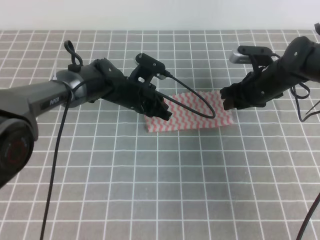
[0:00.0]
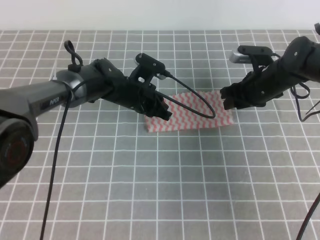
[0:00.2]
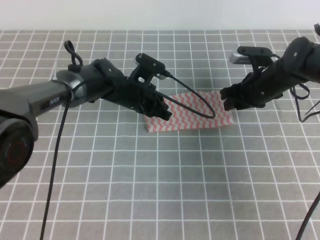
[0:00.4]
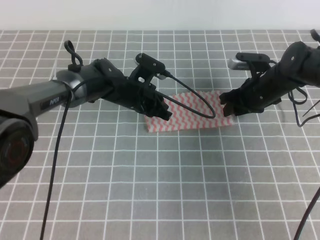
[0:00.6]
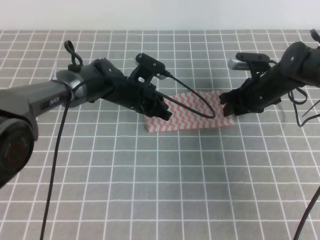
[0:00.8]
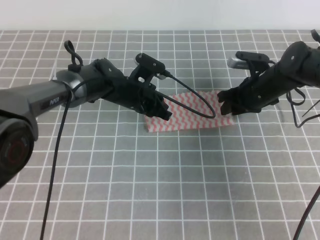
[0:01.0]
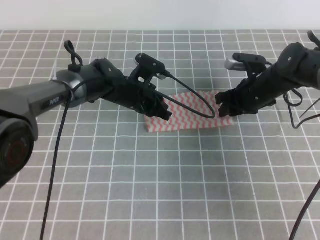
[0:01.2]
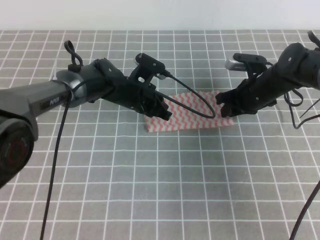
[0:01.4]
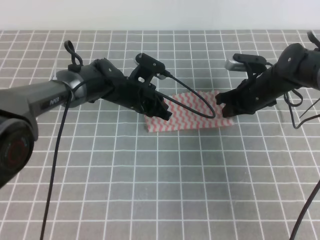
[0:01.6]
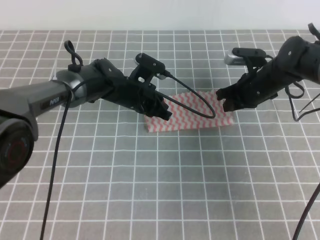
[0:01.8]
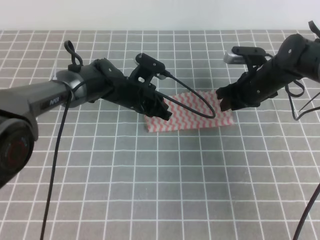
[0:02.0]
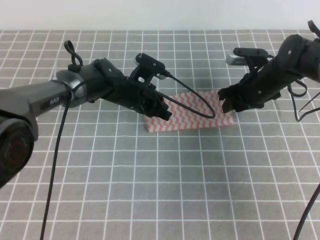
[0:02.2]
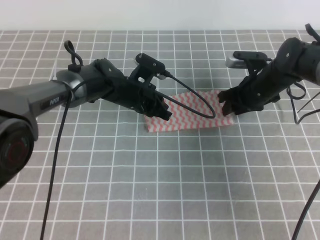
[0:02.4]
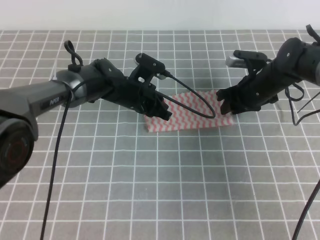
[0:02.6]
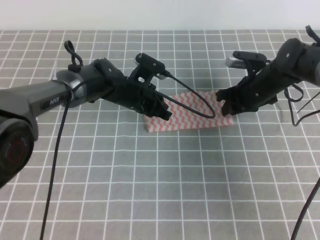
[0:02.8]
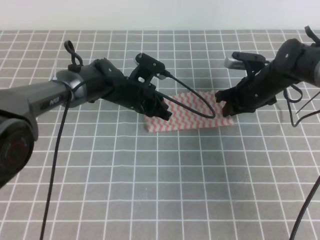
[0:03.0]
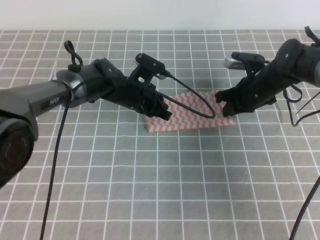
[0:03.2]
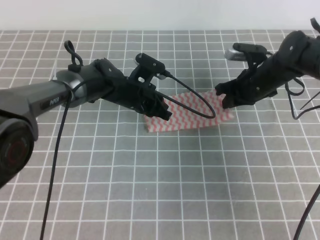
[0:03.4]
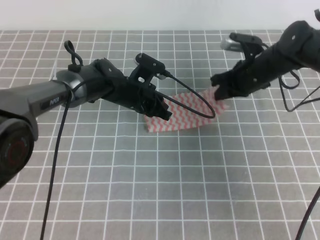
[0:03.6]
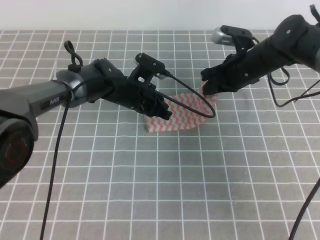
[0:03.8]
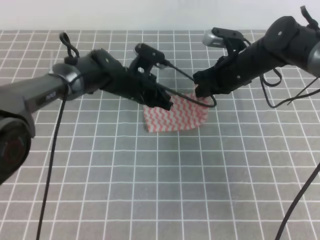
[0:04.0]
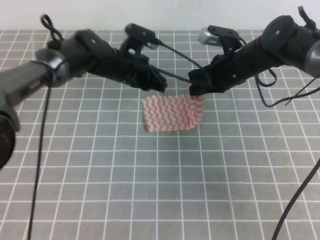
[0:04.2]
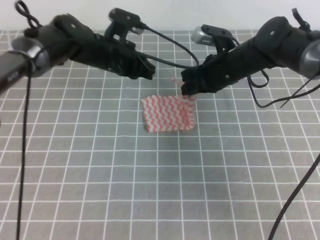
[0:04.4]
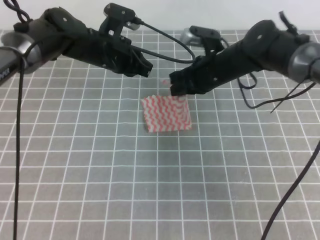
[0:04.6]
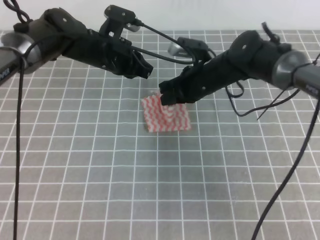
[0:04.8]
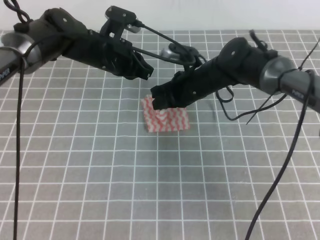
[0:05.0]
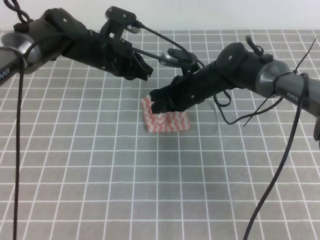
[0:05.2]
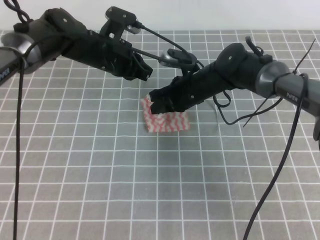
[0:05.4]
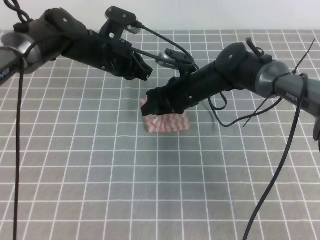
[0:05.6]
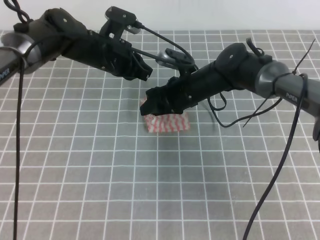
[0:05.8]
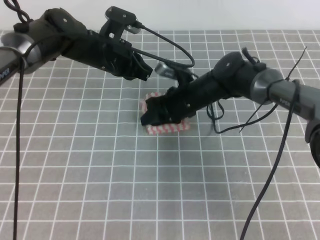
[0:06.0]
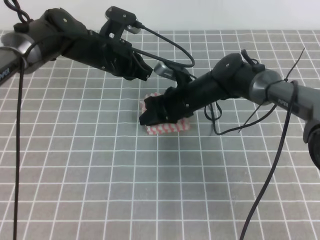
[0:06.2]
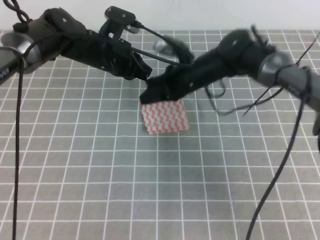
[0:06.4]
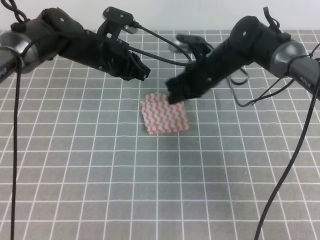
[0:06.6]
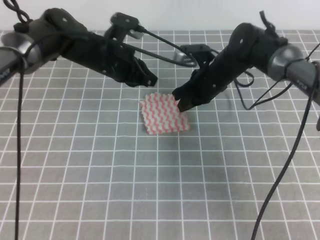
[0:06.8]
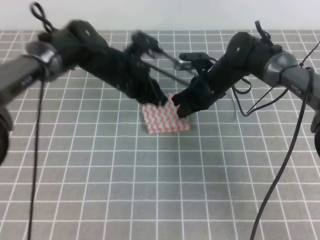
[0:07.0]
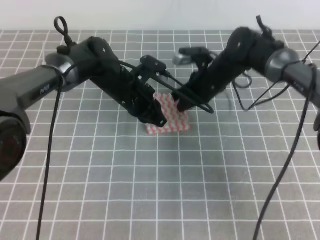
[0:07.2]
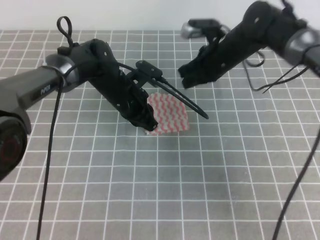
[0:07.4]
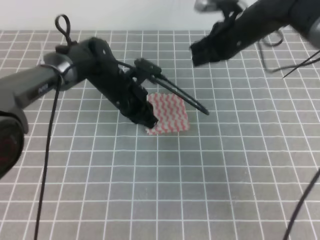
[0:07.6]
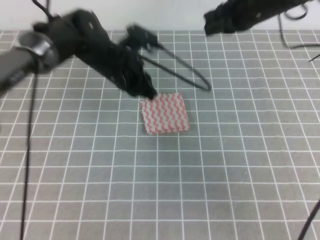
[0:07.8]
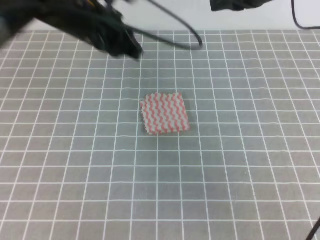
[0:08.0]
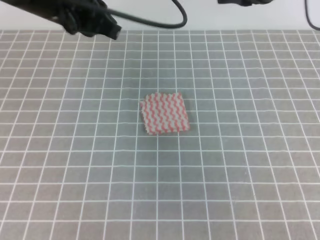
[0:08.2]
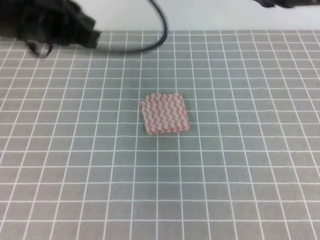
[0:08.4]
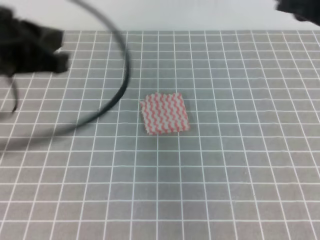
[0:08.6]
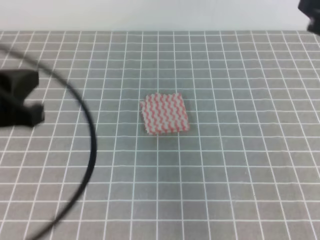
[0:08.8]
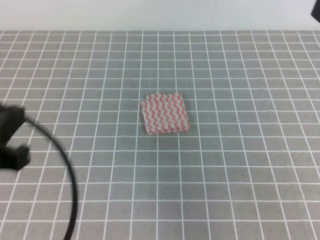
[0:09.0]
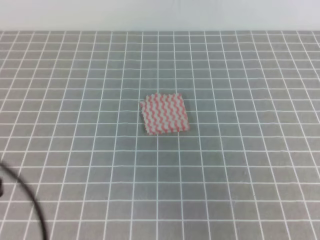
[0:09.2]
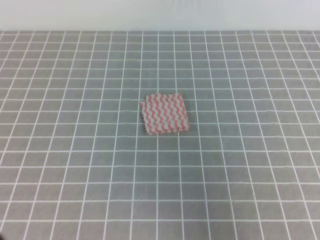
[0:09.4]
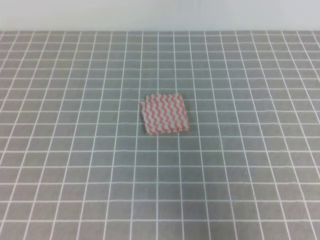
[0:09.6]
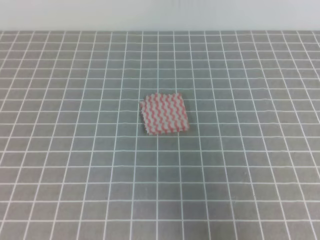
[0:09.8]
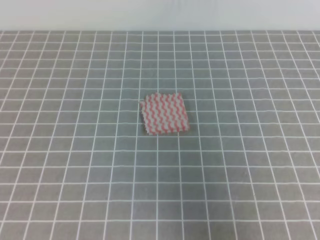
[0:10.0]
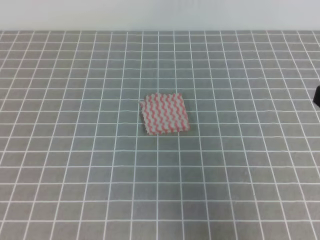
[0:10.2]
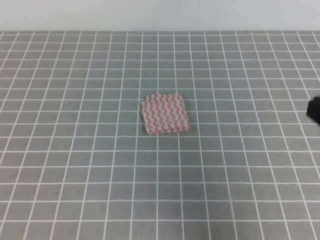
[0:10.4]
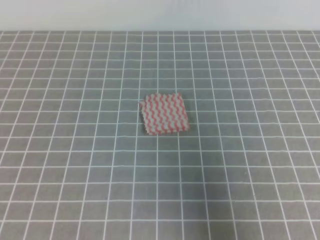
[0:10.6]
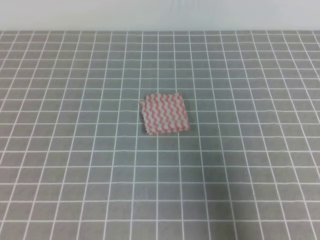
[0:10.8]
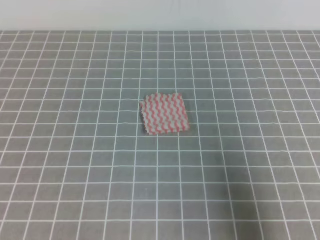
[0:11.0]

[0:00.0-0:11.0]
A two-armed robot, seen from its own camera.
0:00.0 to 0:01.6: The right gripper closes up.
0:01.6 to 0:03.2: The right gripper opens and closes again.
0:03.2 to 0:04.8: The right gripper goes about 10 cm to the left. The left gripper shifts some 10 cm upward.
0:04.8 to 0:06.2: The right gripper changes place by some 5 cm, and opens.
0:06.2 to 0:07.8: The right gripper is displaced upward and to the right by some 20 cm, and closes its fingers.
0:07.8 to 0:09.4: The left gripper shifts roughly 35 cm backward and to the left; the right gripper is displaced backward by about 30 cm.
0:09.4 to 0:11.0: The right gripper heads downward, covering roughly 10 cm.

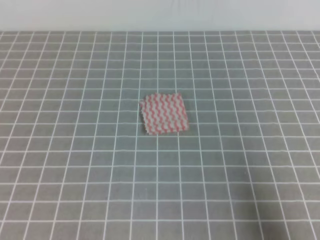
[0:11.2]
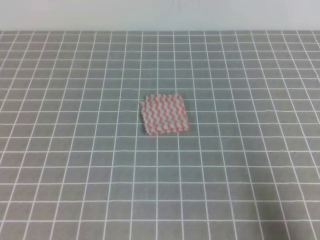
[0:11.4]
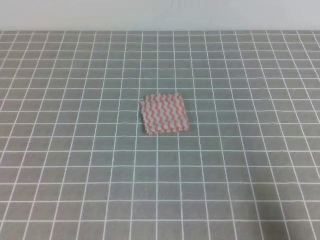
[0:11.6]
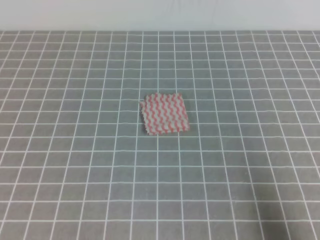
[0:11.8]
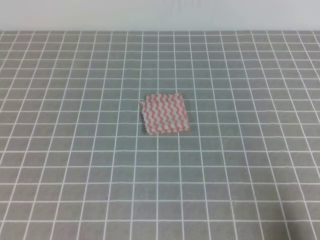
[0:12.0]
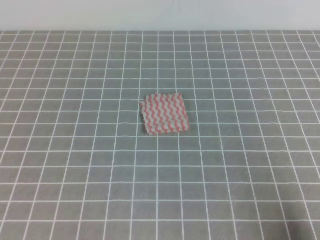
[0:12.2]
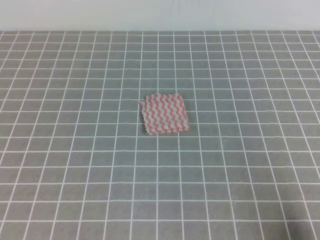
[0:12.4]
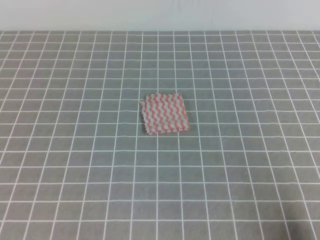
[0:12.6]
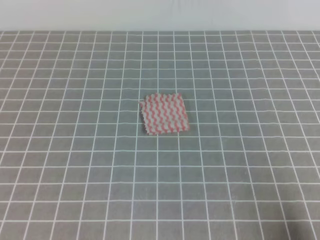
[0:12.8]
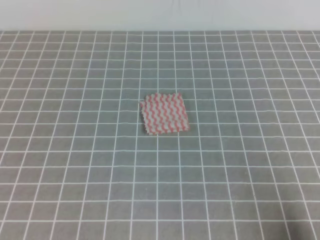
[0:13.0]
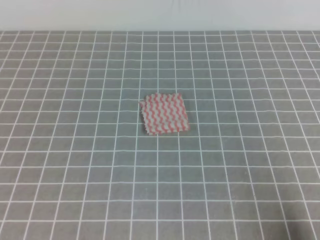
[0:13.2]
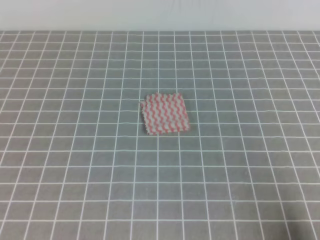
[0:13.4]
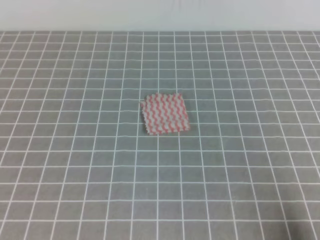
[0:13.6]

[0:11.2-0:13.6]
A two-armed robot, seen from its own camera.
0:11.2 to 0:12.4: The right gripper heads downward, covering approximately 5 cm.
